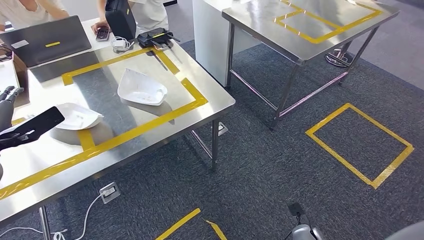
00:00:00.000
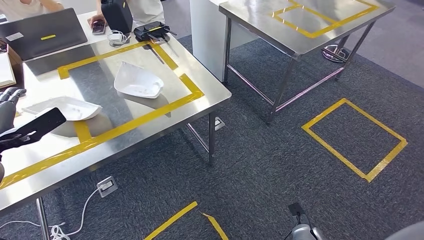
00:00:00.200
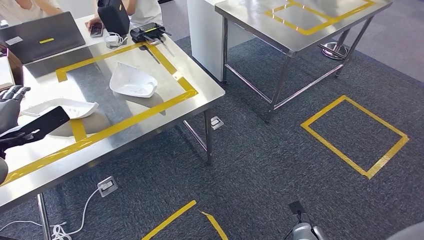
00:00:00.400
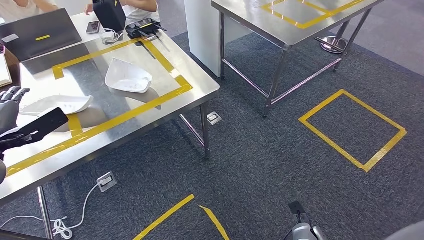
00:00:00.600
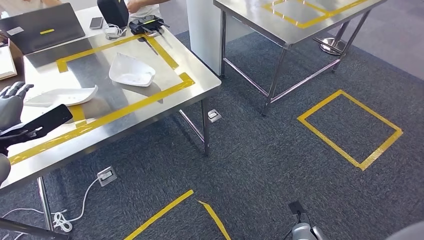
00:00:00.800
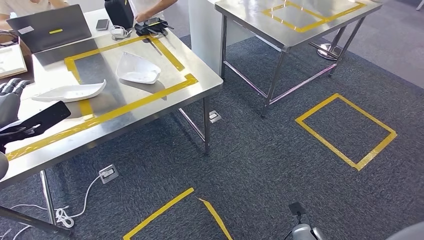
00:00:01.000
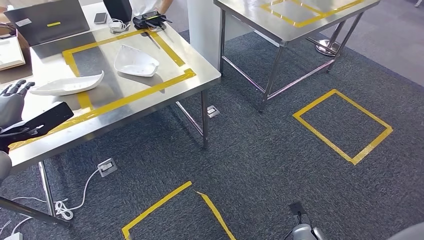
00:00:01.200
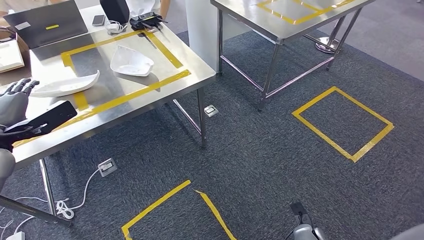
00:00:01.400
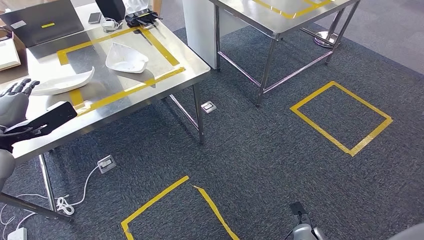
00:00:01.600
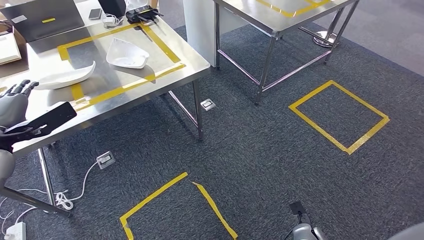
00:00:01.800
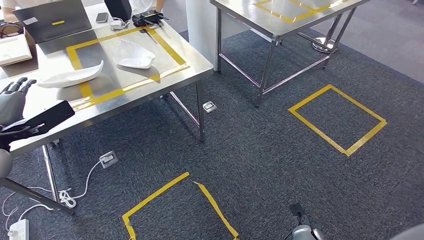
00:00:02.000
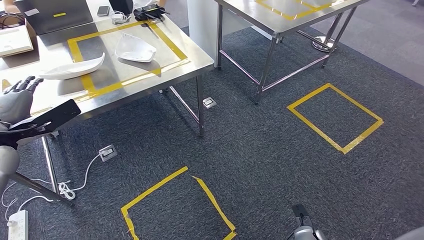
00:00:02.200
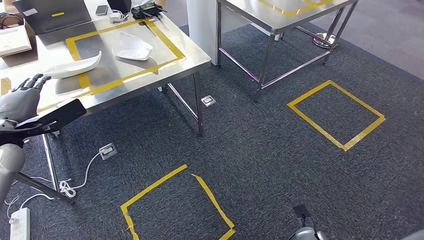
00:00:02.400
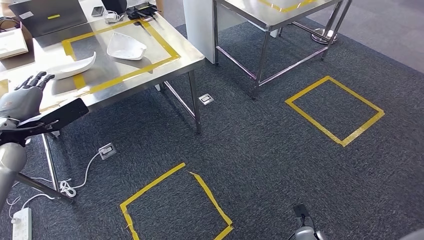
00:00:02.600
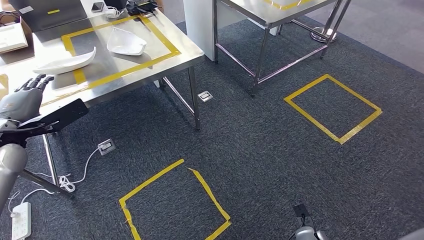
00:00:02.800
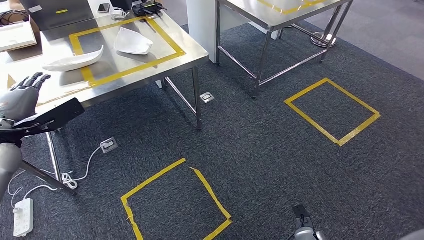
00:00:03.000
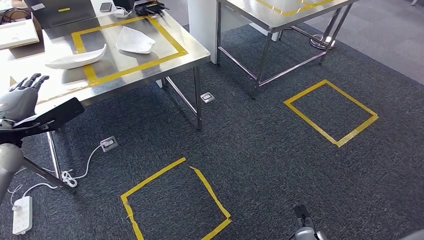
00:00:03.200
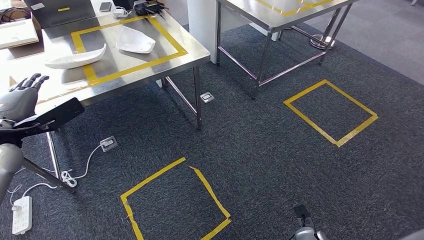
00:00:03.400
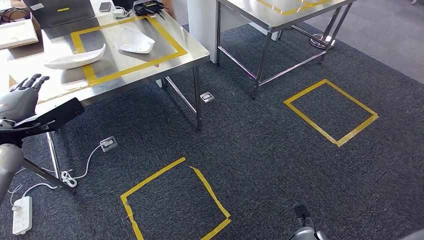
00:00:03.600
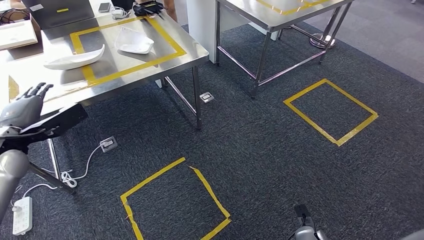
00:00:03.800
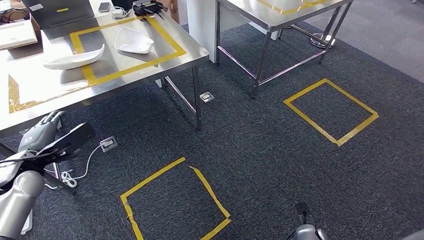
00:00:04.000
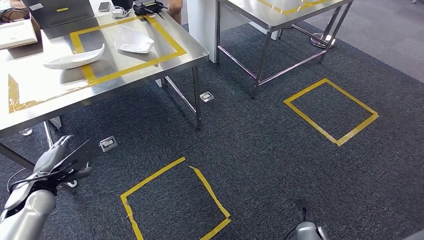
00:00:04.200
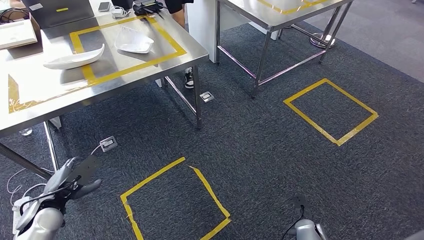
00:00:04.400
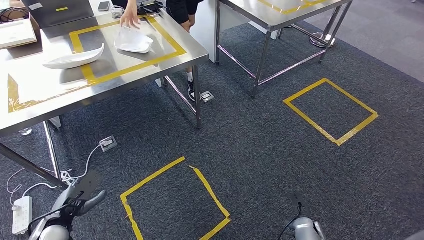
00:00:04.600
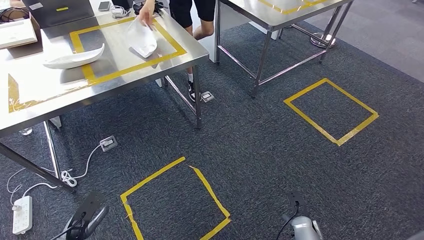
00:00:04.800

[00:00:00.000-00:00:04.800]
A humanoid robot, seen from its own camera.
Step, 00:00:00.000 to 00:00:04.800: Return to the initial position at the workbench.
00:00:03.200 to 00:00:04.800: The left hand shifts roughly 35 cm downward and backward.
